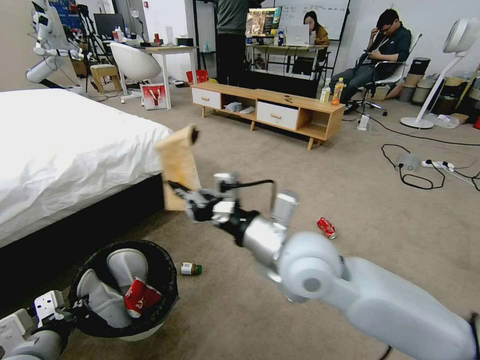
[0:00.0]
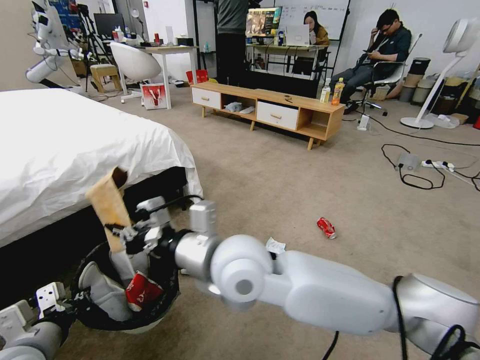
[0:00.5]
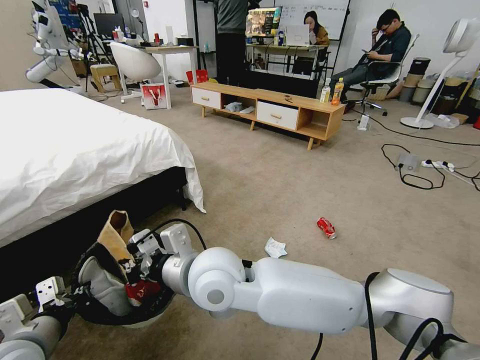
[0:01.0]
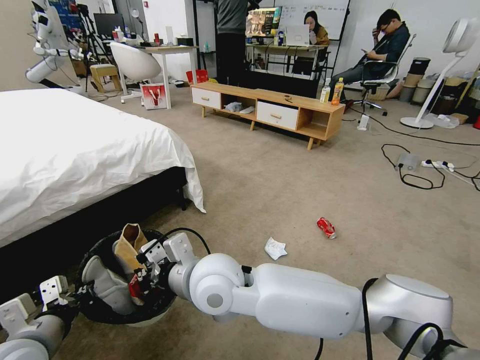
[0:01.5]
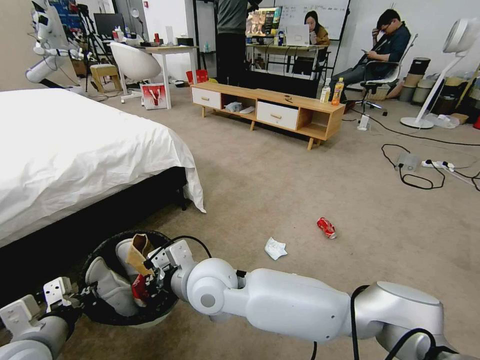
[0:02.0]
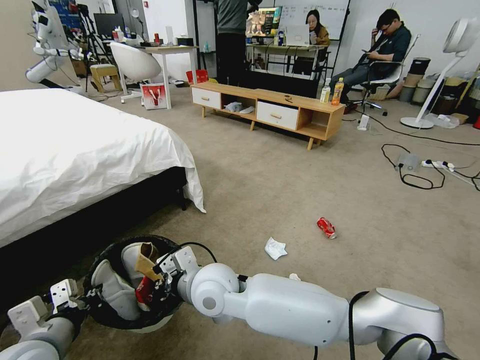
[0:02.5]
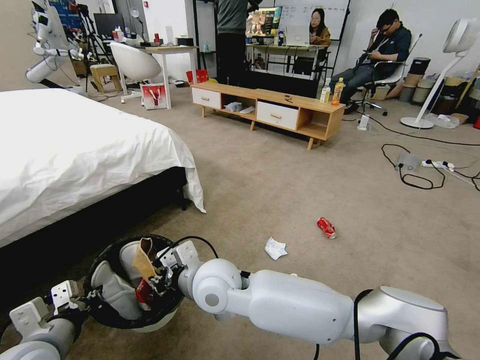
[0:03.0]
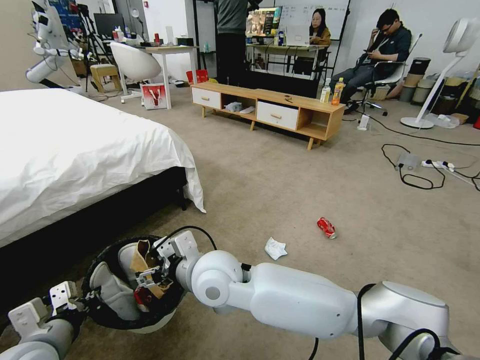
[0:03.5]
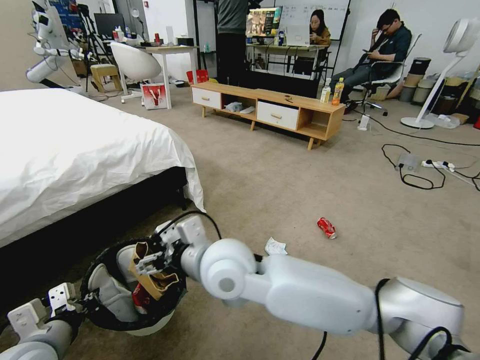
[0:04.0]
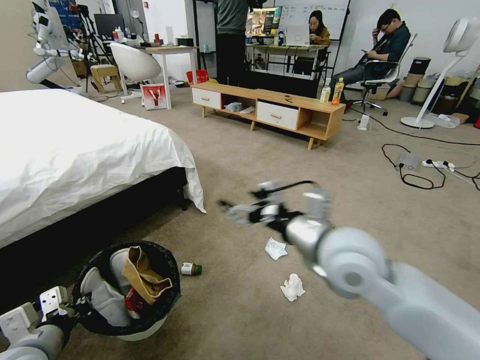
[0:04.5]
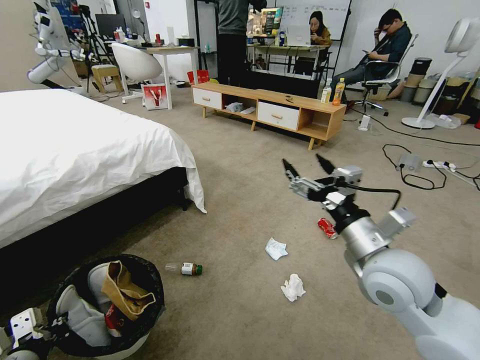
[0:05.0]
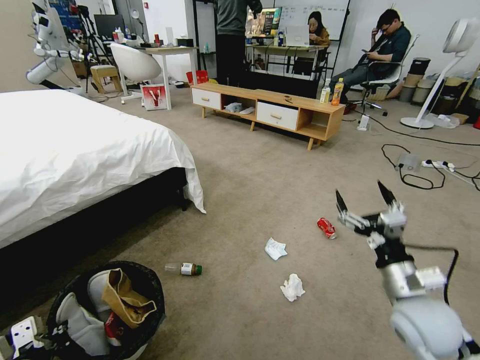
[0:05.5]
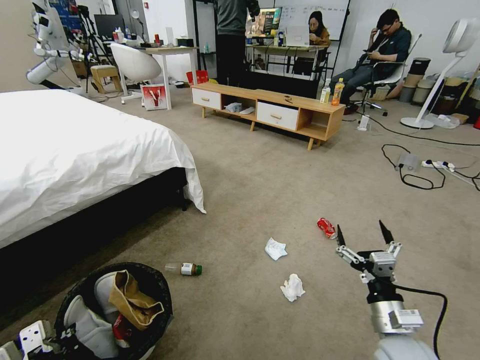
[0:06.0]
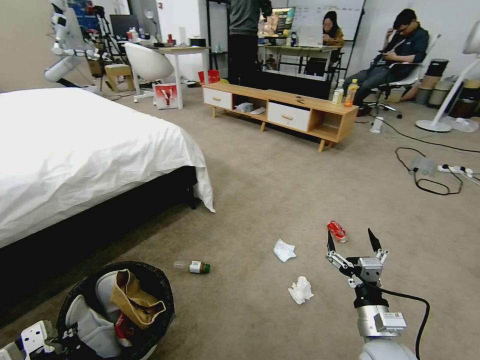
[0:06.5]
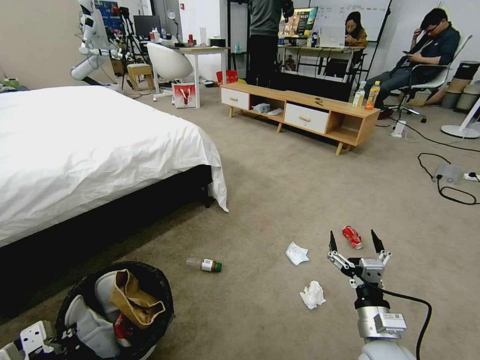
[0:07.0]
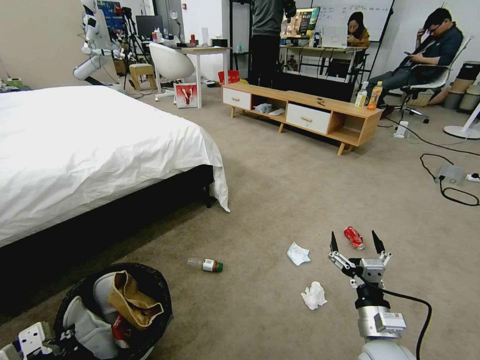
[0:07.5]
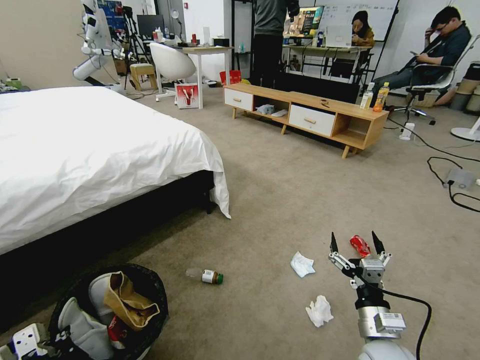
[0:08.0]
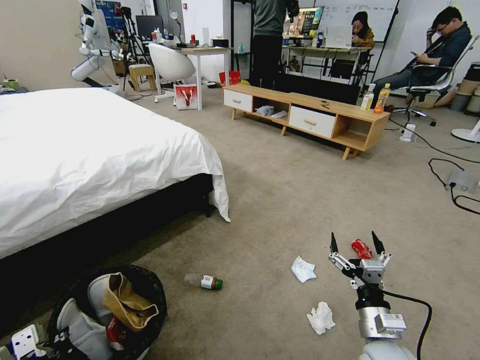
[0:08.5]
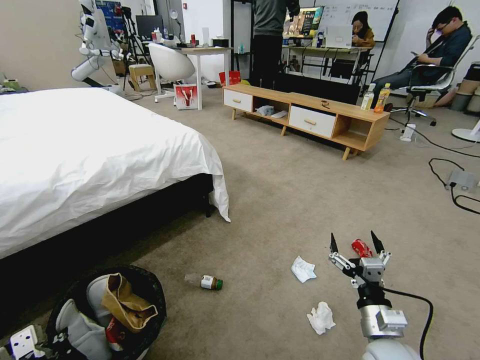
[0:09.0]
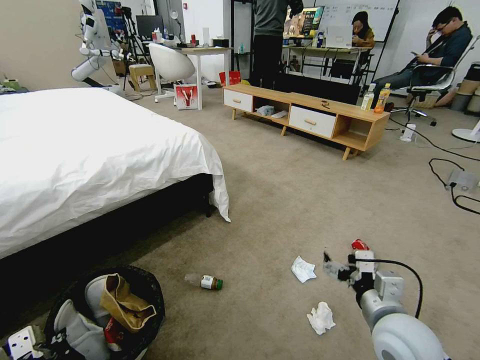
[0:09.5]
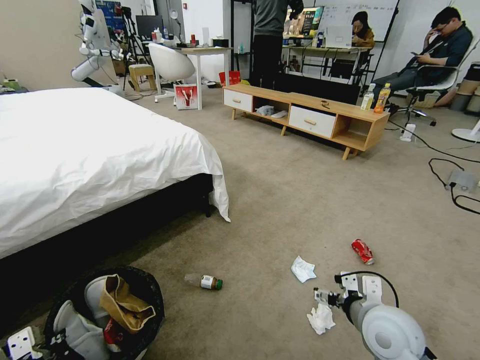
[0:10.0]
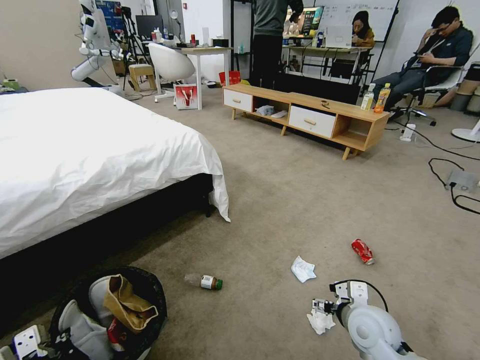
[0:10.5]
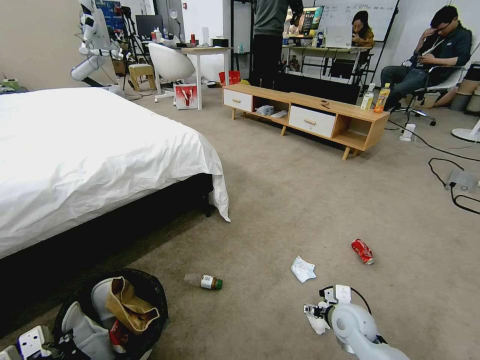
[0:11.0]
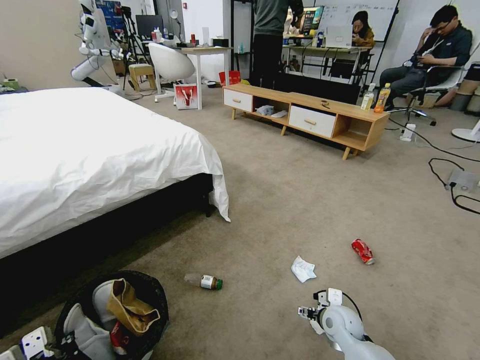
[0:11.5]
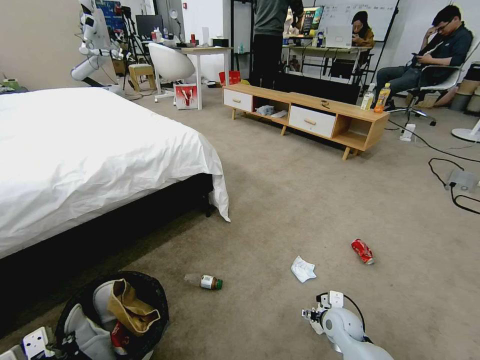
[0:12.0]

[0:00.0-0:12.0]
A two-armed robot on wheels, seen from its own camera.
Task of the whole recording: Pick up the trash bin and place the garbage on the floor into it.
0:00.0 to 0:02.0: The right gripper shifts approximately 20 cm to the left and downward.
0:02.0 to 0:04.0: The right gripper moves upward, roughly 5 cm, and opens up.
0:04.0 to 0:06.0: The left gripper heads backward, covering about 5 cm, while the right gripper heads to the right and downward, covering about 40 cm.
0:08.0 to 0:10.0: The right gripper moves upward, roughly 5 cm.
0:10.0 to 0:12.0: The right gripper goes about 20 cm downward and forward.

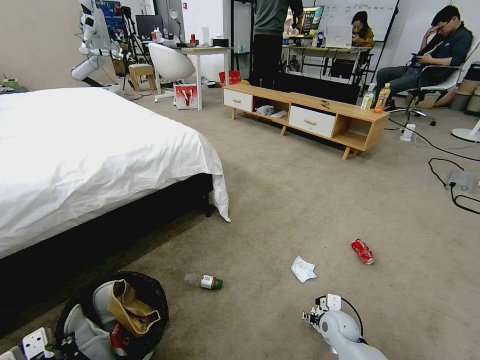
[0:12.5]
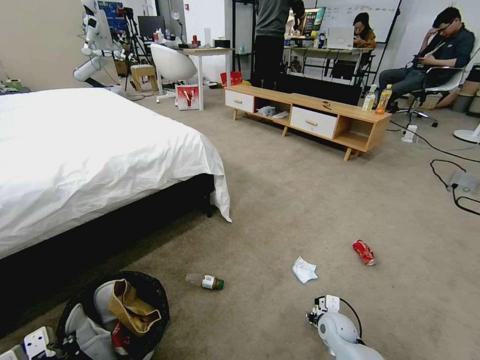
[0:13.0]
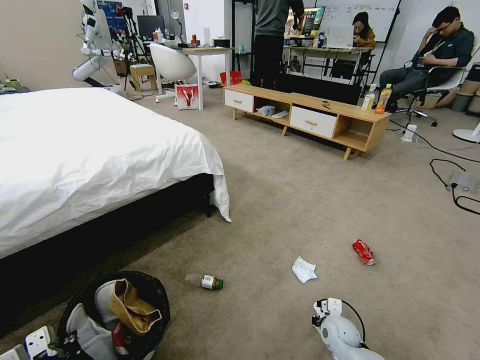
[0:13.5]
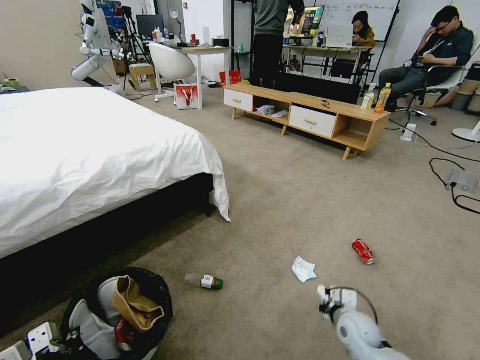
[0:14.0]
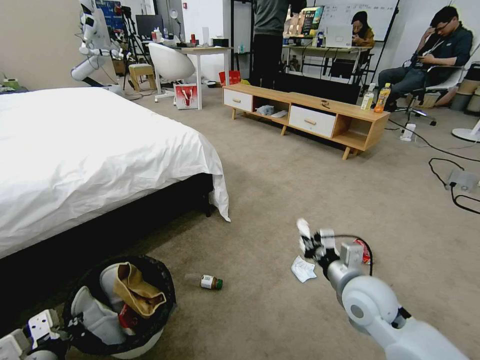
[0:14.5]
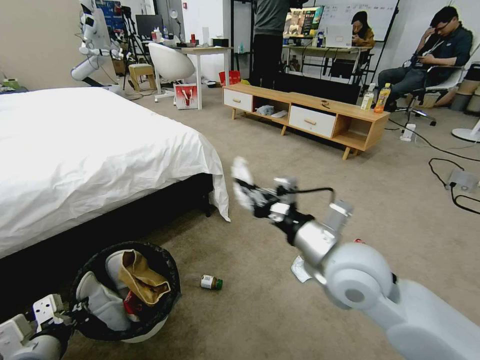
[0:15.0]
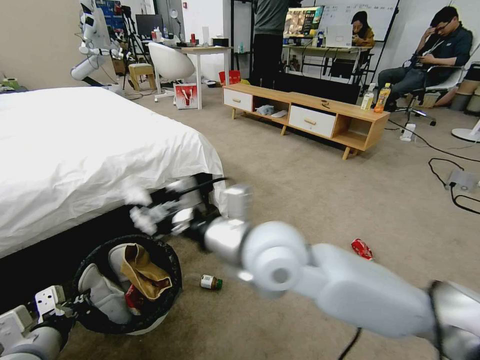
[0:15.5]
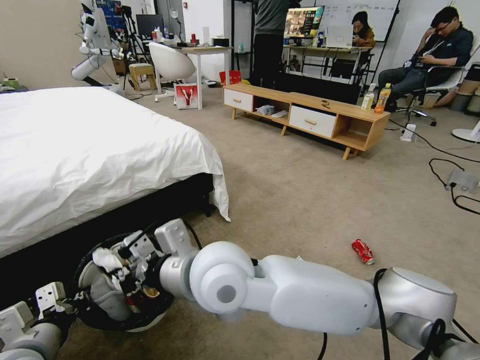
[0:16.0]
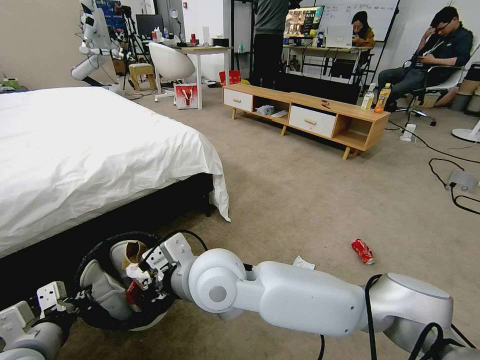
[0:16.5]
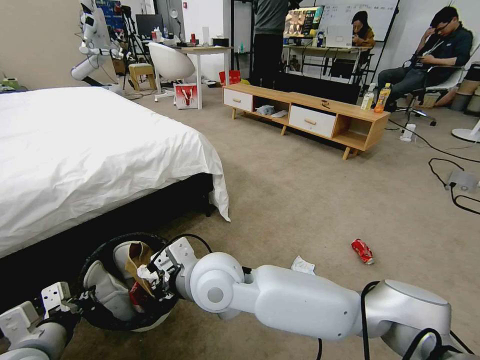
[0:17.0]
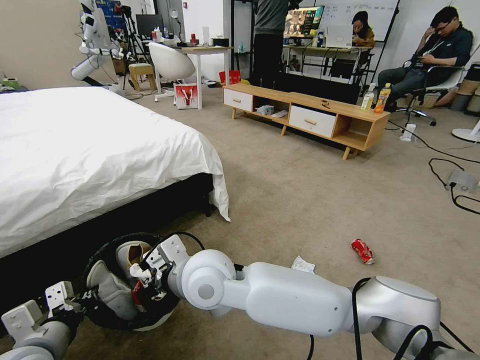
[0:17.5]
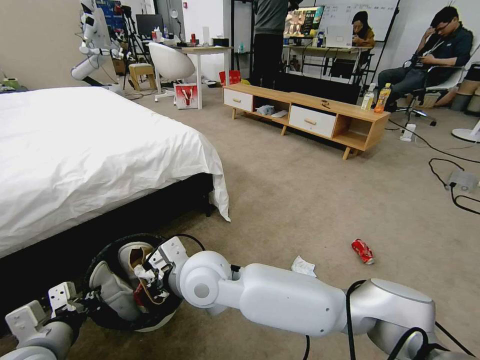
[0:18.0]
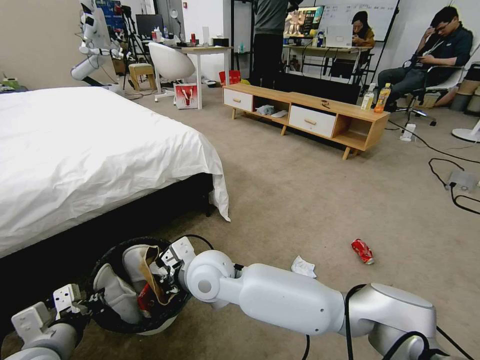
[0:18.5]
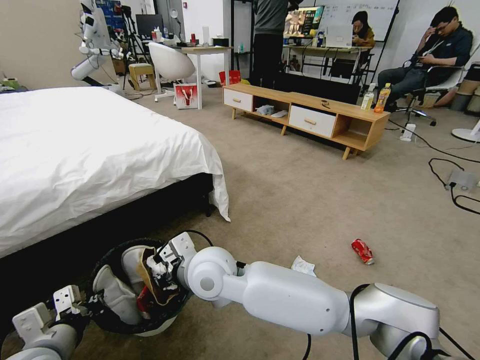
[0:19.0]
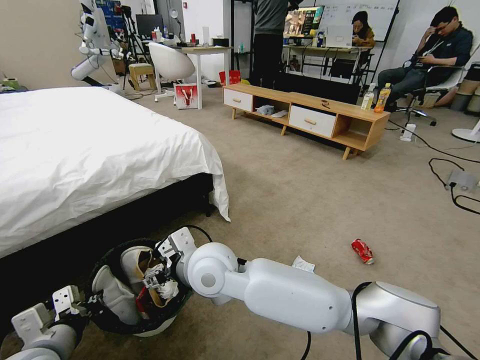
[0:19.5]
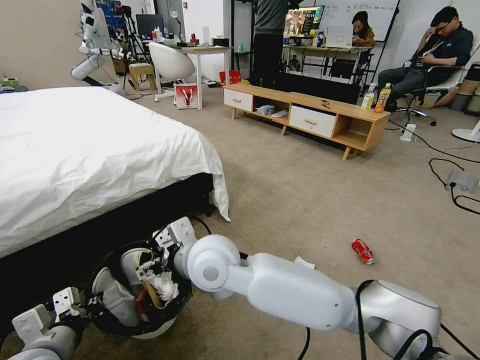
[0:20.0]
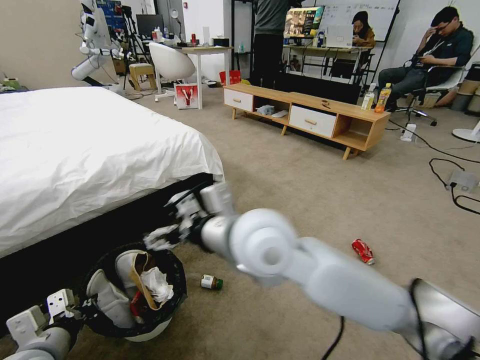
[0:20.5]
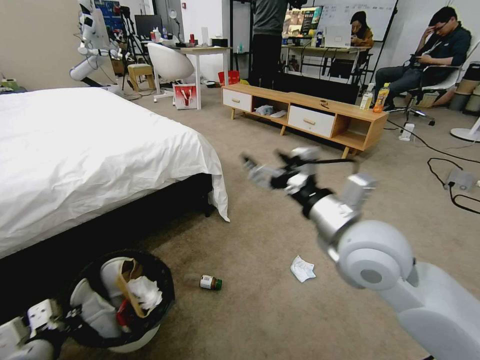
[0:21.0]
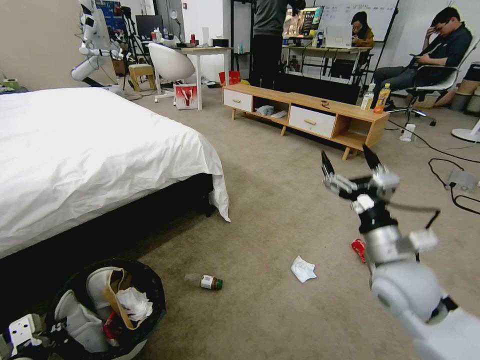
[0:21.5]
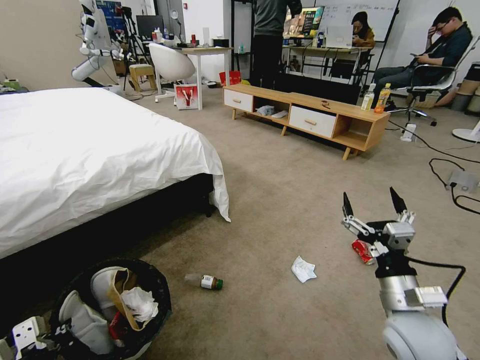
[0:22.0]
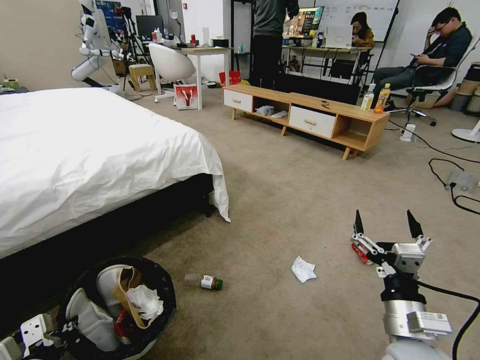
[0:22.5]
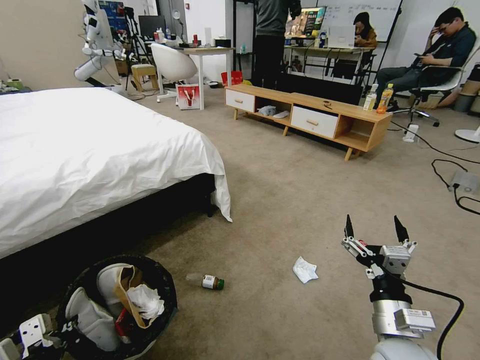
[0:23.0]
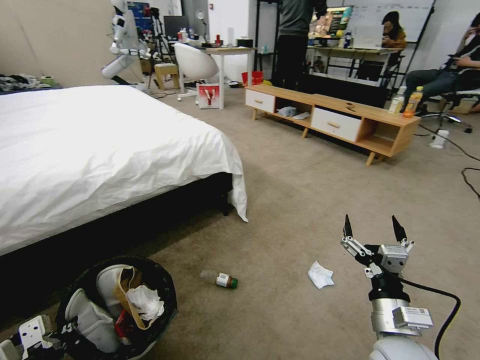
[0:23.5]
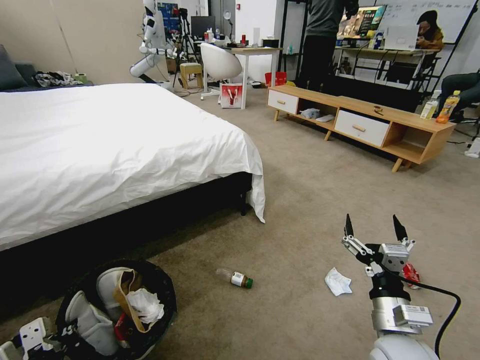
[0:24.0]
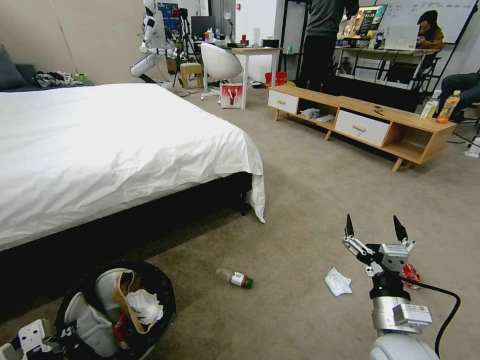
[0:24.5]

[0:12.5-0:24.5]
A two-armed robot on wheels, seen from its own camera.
Task of the whole recording: Pick up the trash bin and place the garbage on the floor into it.
0:12.5 to 0:14.5: The right gripper heads upward, covering about 25 cm, and closes its fingers.
0:14.5 to 0:16.5: The right gripper moves to the left, approximately 30 cm.
0:16.5 to 0:18.5: The right gripper is displaced downward by roughly 5 cm.
0:18.5 to 0:20.5: The right gripper moves upward and to the right, some 20 cm, and opens.
0:20.5 to 0:22.5: The left gripper moves backward, about 5 cm. The right gripper shifts approximately 35 cm to the right, downward and backward.

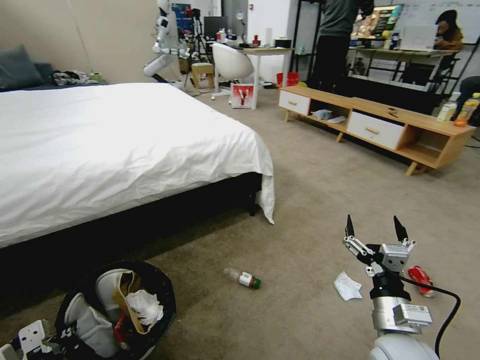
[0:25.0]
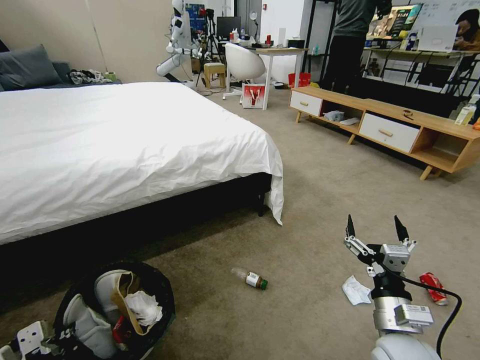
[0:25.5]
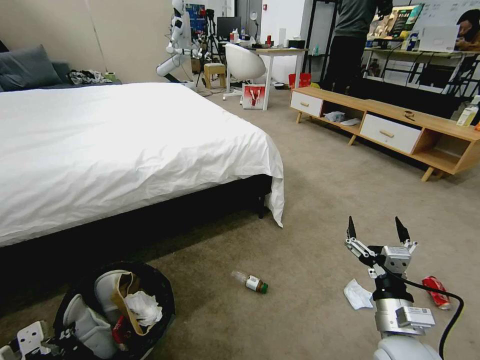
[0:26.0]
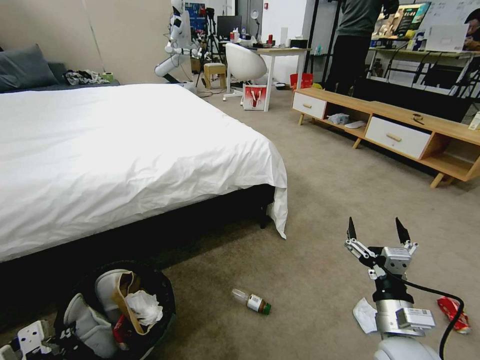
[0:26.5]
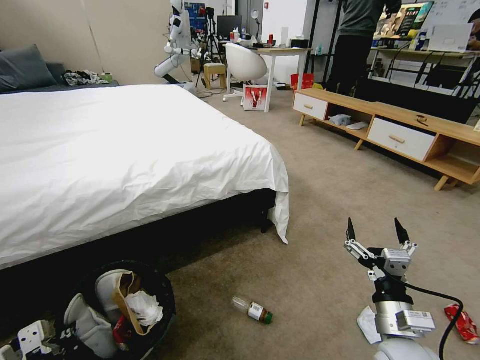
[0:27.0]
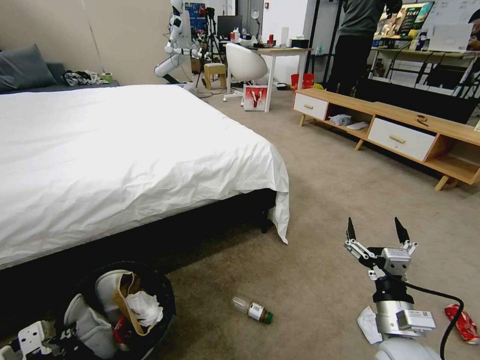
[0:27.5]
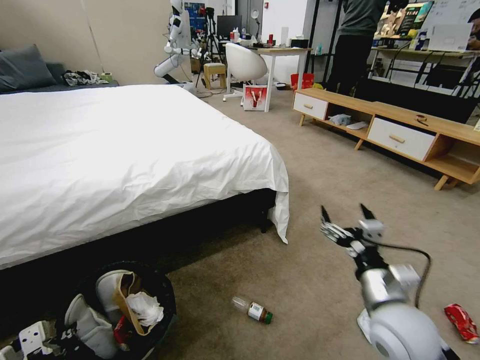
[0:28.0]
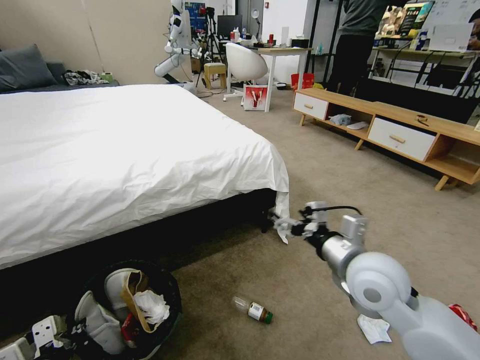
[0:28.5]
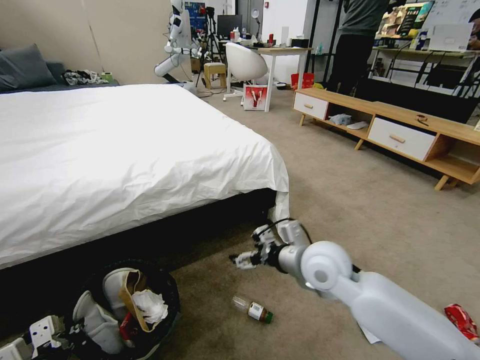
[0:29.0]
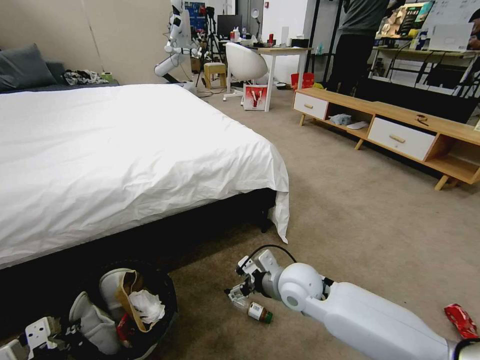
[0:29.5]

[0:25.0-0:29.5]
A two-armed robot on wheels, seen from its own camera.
Task of the whole recording: Pick up the trash bin and place the garbage on the floor into it.
0:27.0 to 0:29.5: The right gripper goes some 20 cm to the left and forward.
